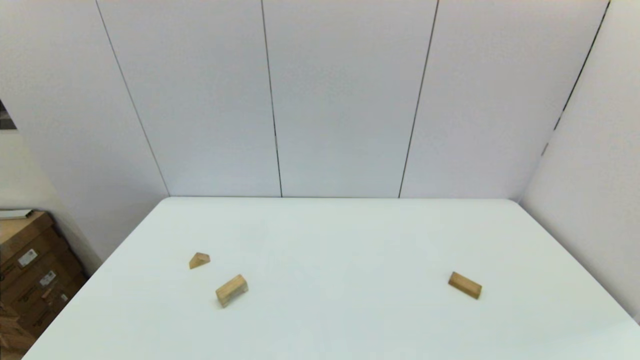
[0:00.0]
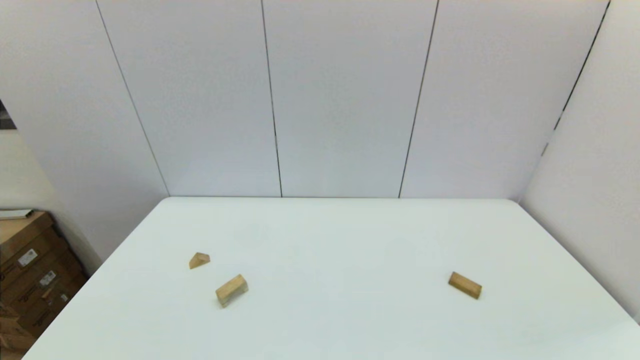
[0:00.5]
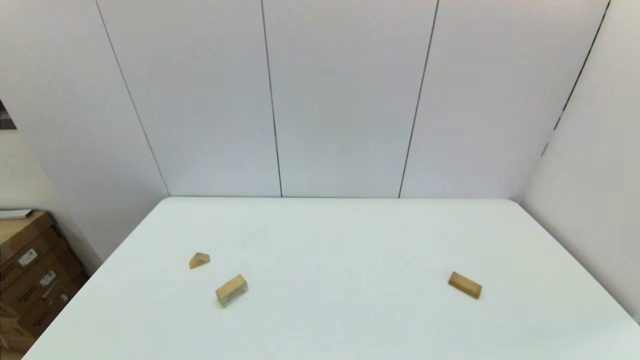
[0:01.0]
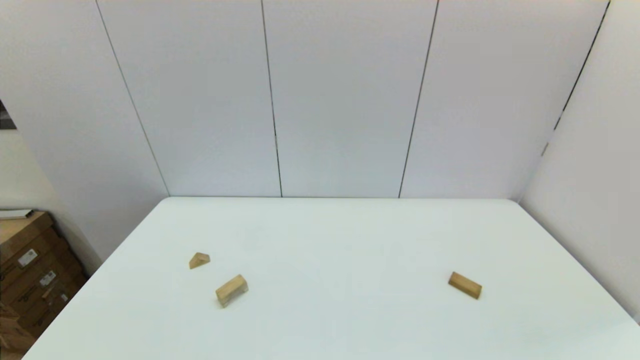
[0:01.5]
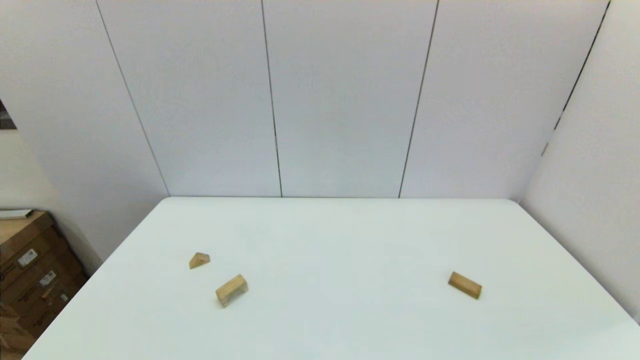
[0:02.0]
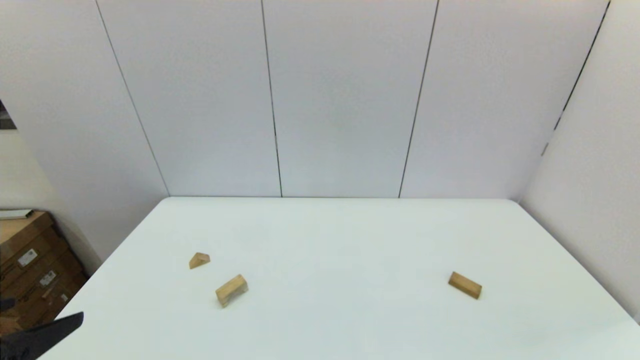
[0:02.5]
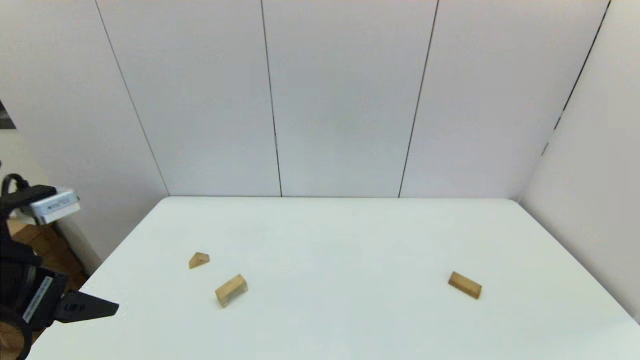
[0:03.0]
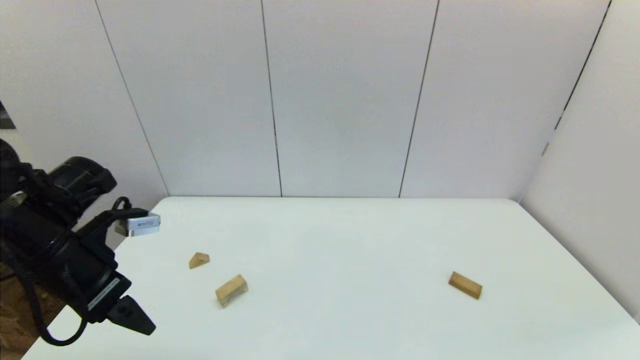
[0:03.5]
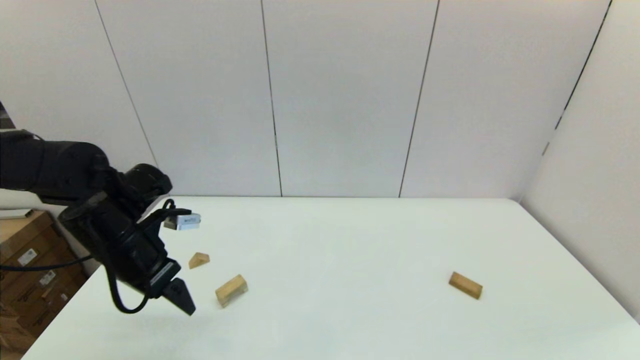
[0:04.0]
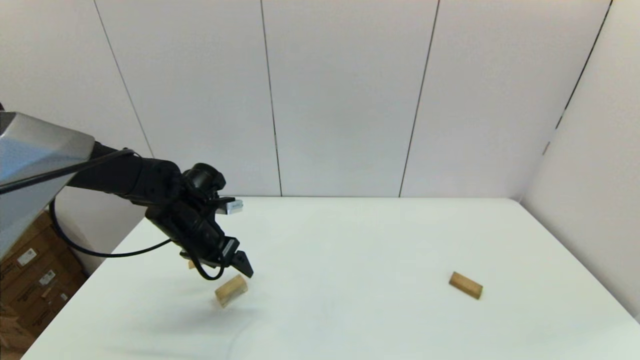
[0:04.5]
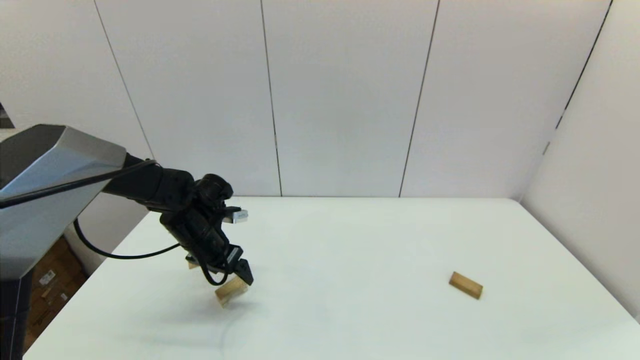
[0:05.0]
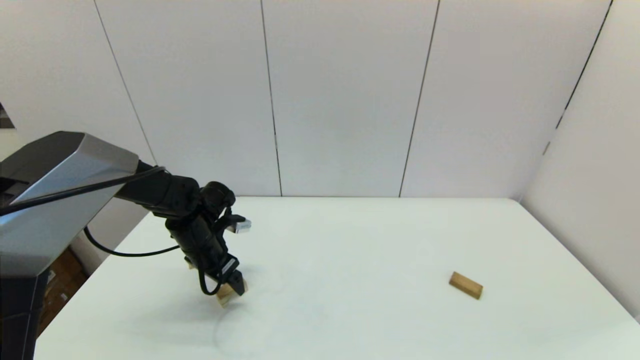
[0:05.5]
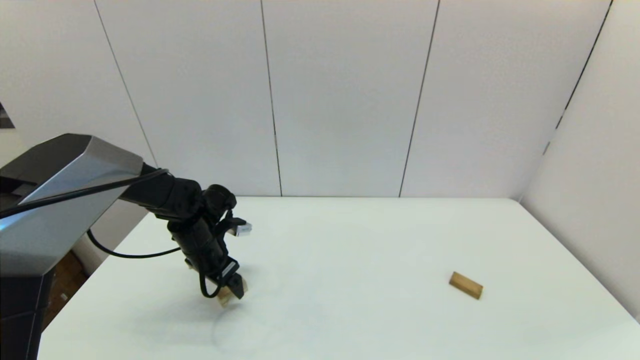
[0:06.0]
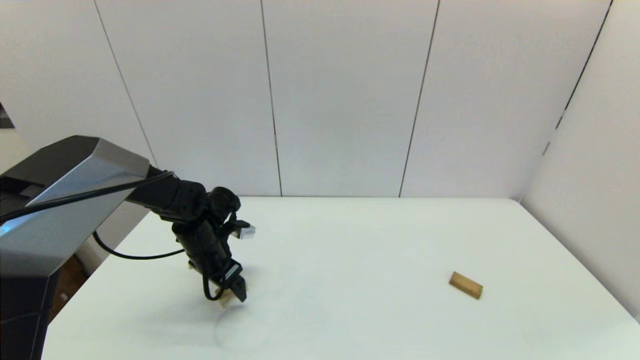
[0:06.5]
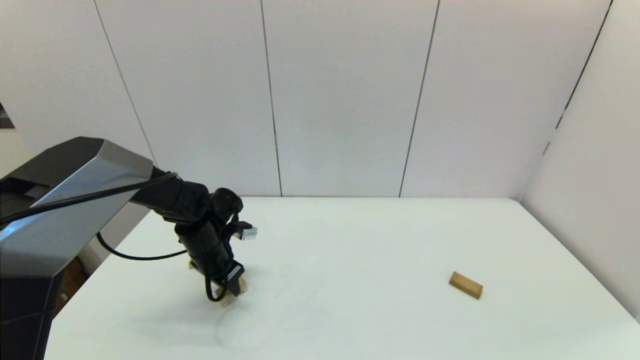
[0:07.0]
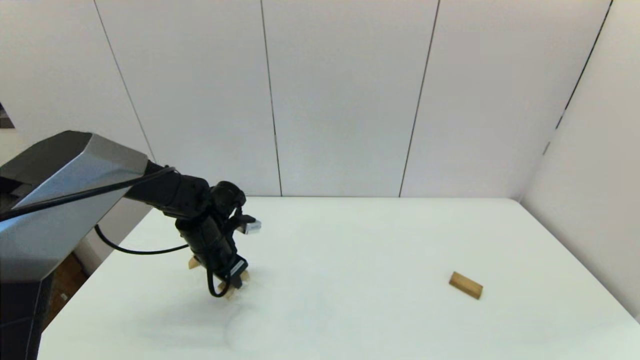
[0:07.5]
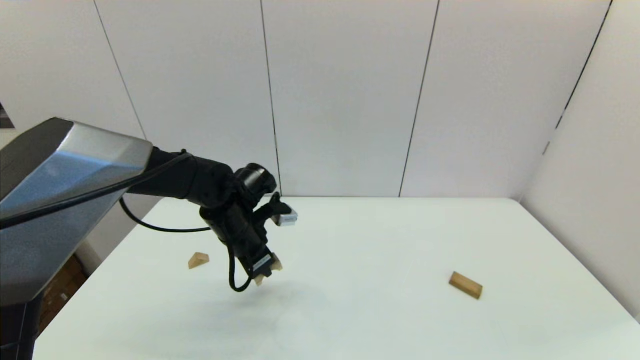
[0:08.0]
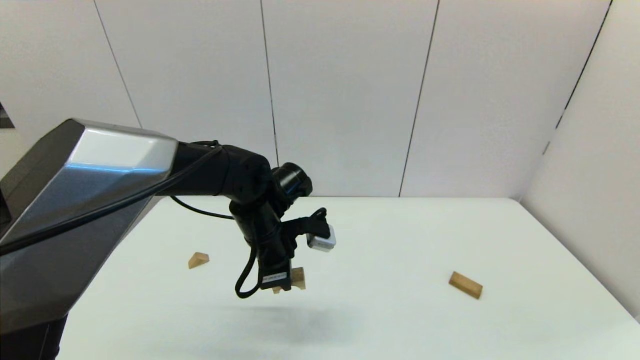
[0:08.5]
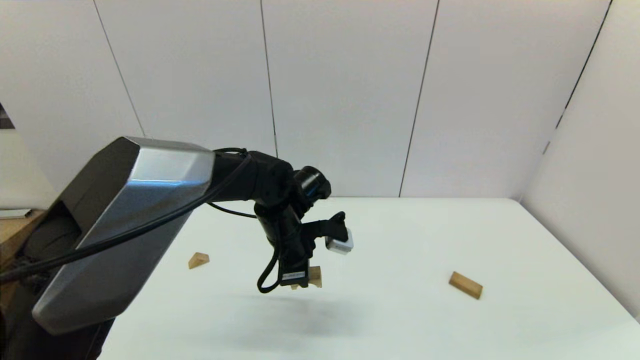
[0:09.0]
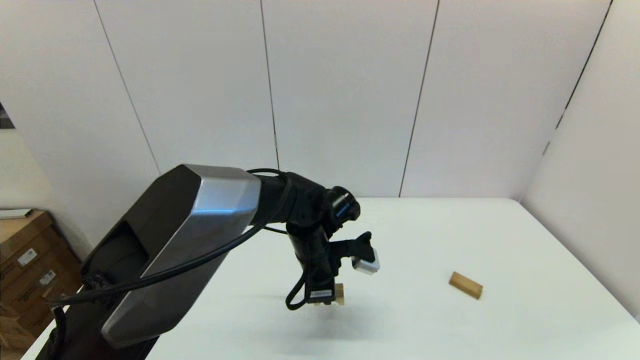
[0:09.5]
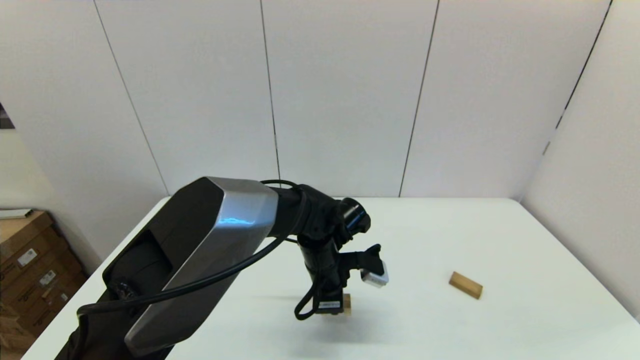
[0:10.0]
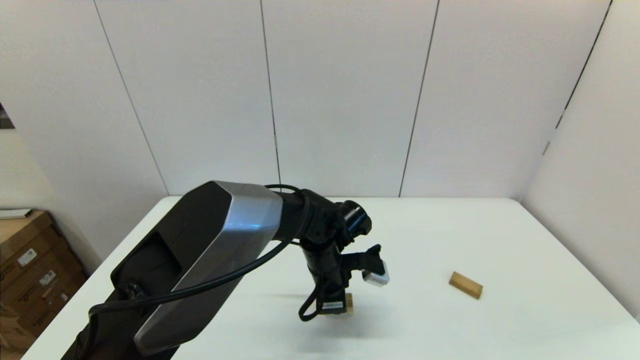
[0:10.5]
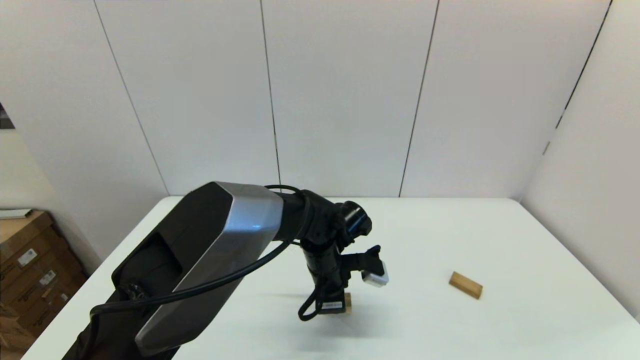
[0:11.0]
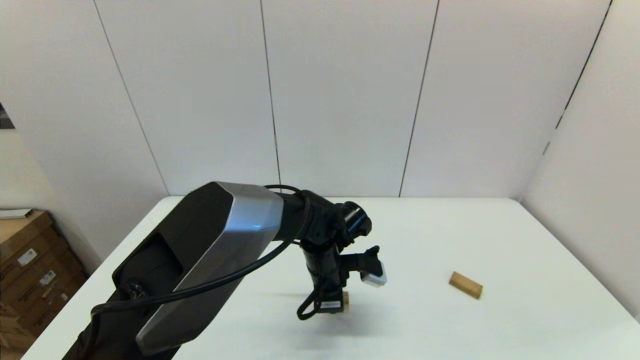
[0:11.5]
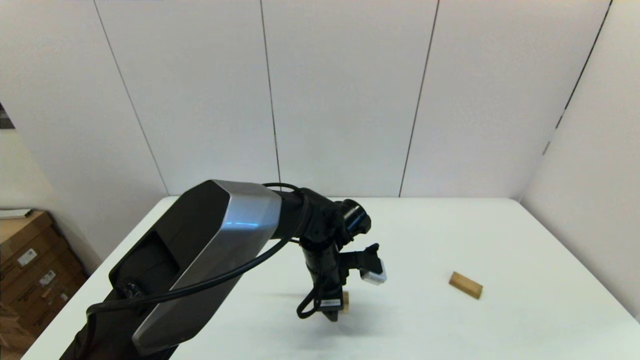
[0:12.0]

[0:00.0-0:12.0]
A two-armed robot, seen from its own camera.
Task of the whole recording: place the arched building blocks in the center of the table, set up the rectangular building blocks, and then set up the triangular building blocks.
Step, 0:02.5 to 0:07.0: Grasp the arch-shaped block with the left gripper.
Step, 0:07.5 to 0:11.5: Place the arch-shaped block in the center of view with the left gripper.
0:02.0 to 0:04.0: The left gripper is displaced forward by about 30 cm.
0:04.0 to 0:06.0: The left gripper heads downward, forward and to the right, covering roughly 15 cm.
0:06.0 to 0:08.0: The left gripper is displaced to the right and upward by roughly 10 cm, and closes.
0:08.0 to 0:10.0: The left gripper shifts approximately 15 cm to the right.
0:10.0 to 0:12.0: The left gripper opens.

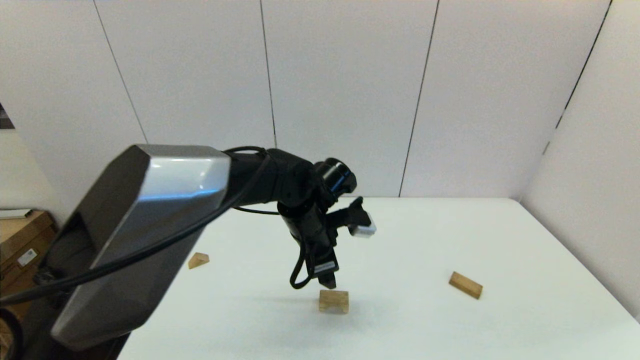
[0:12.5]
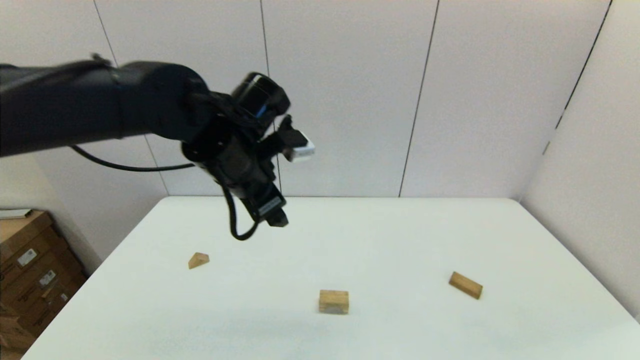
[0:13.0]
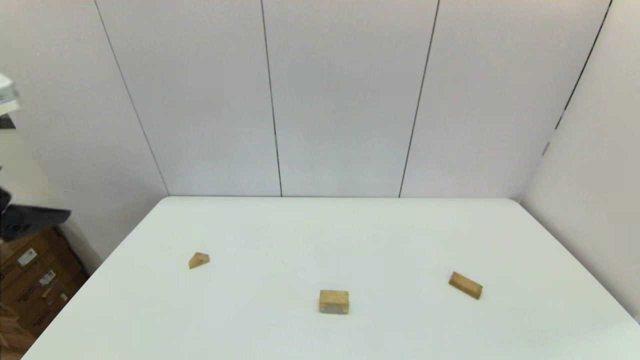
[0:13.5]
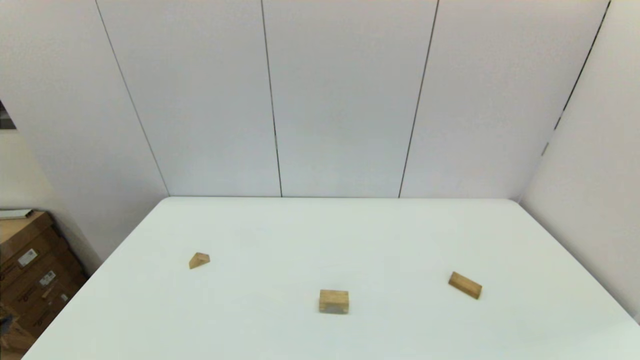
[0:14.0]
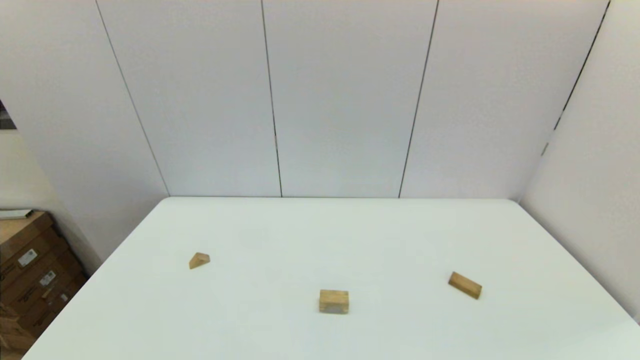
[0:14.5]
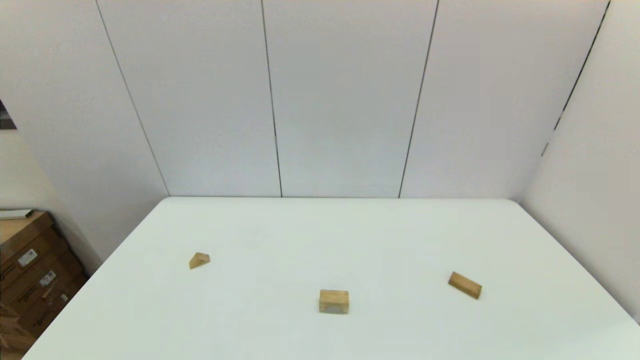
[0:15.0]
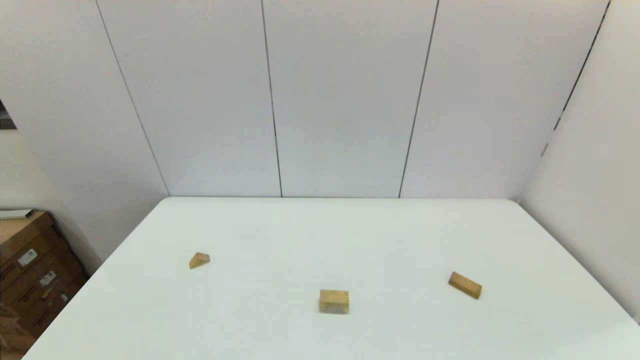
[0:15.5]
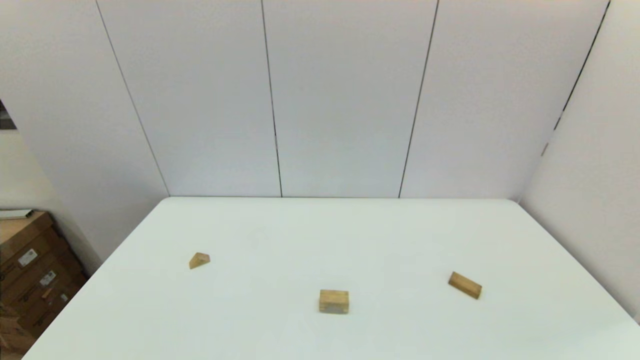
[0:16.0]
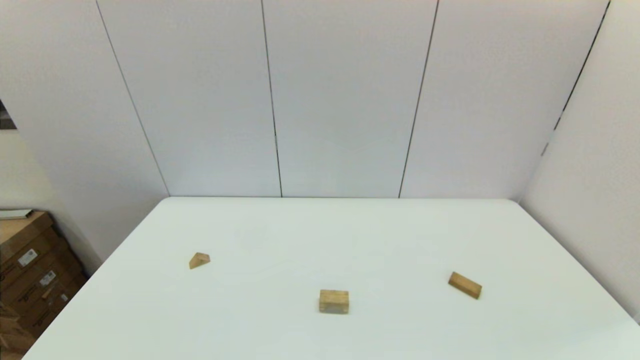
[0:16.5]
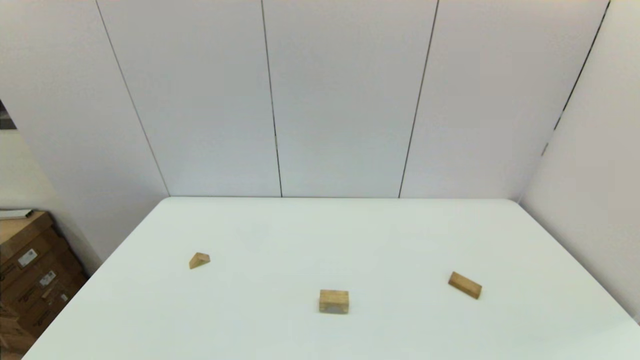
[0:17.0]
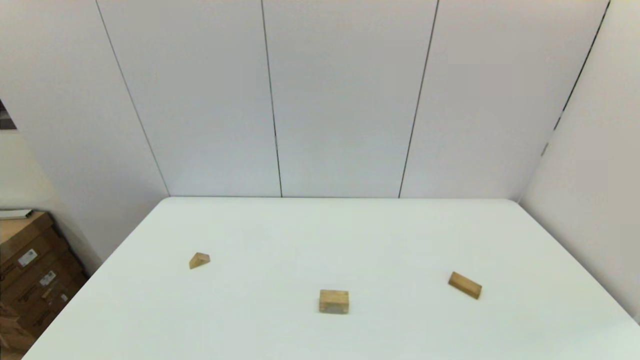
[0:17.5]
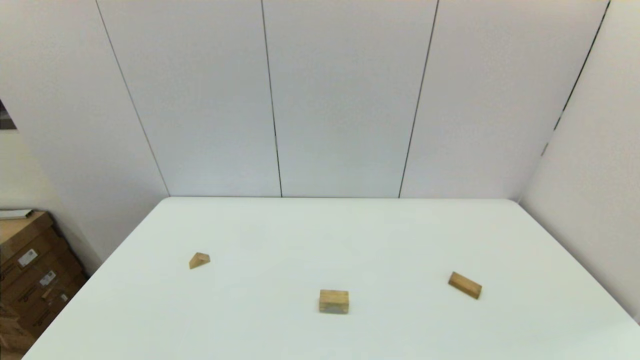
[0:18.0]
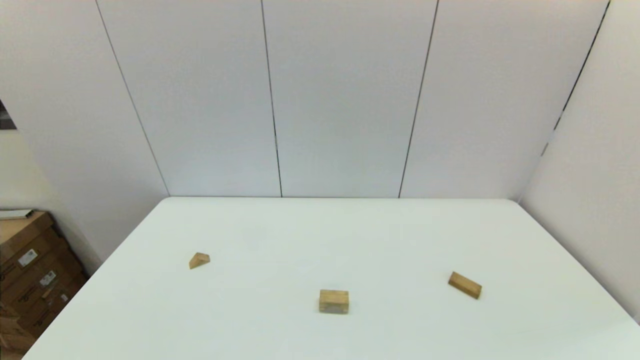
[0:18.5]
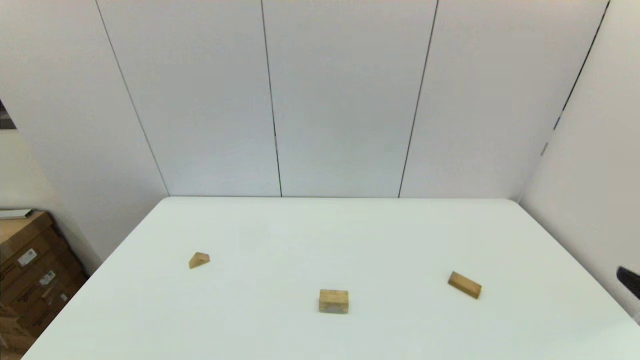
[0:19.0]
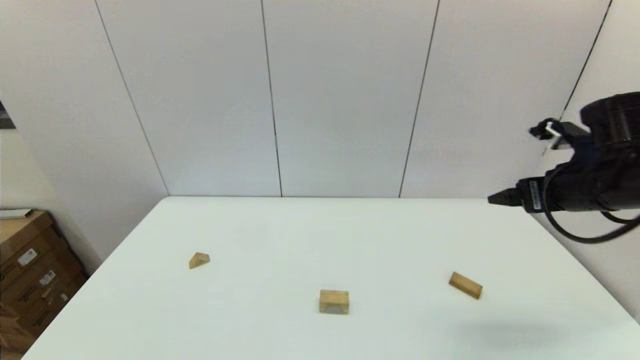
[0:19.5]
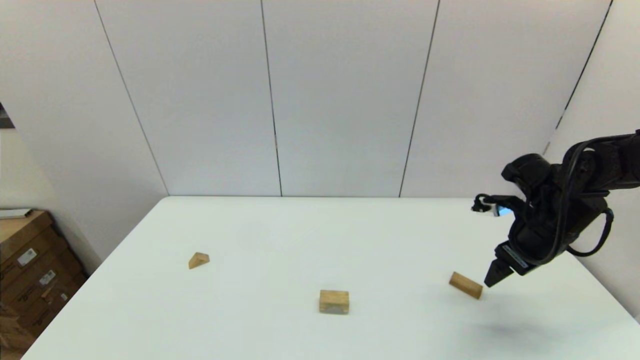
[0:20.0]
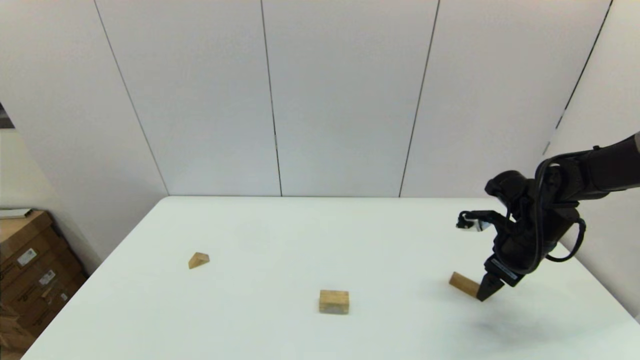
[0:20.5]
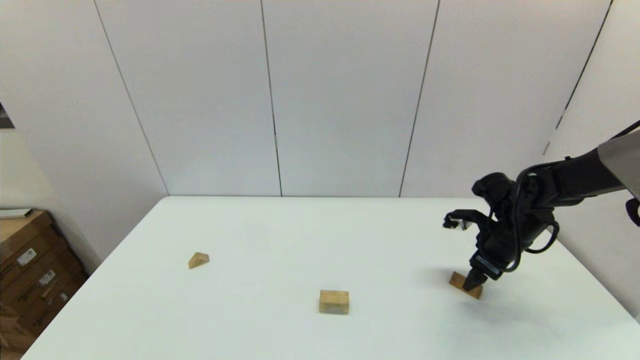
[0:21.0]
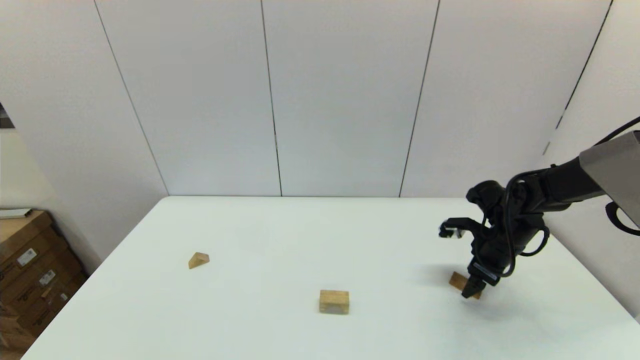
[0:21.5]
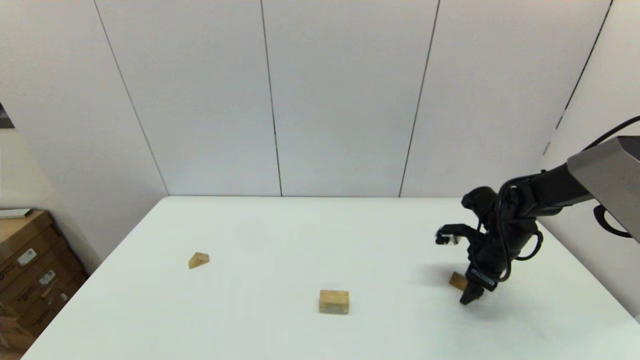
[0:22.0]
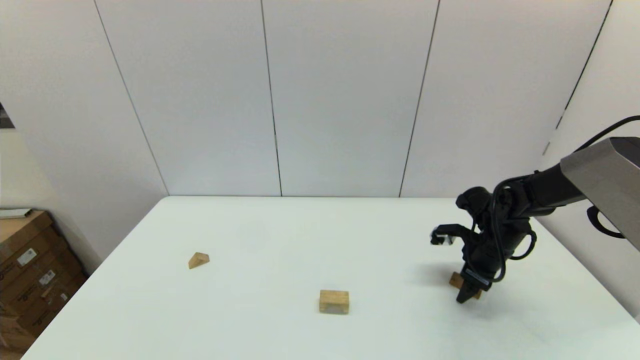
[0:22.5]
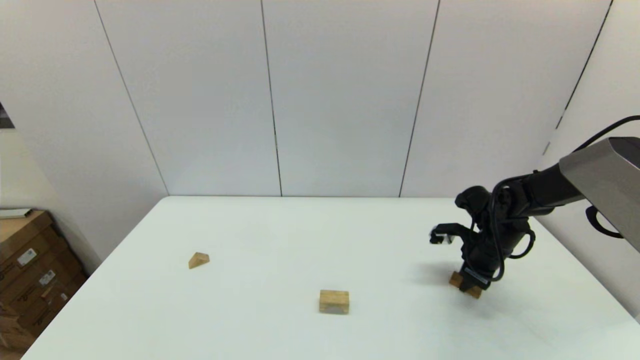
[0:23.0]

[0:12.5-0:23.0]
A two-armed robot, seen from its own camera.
Task of the whole recording: place the arched building blocks in the center of the table, set up the rectangular building blocks, and then set up the triangular building blocks.
Step, 0:12.5 to 0:22.5: Grasp the box-shaped block with the right gripper.
0:12.5 to 0:14.5: The left gripper heads backward and to the left, covering approximately 40 cm.
0:19.0 to 0:21.0: The right gripper shifts roughly 35 cm forward and downward.
0:21.0 to 0:23.0: The right gripper closes up.
